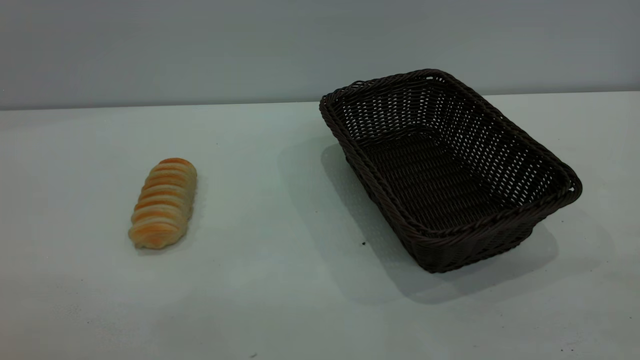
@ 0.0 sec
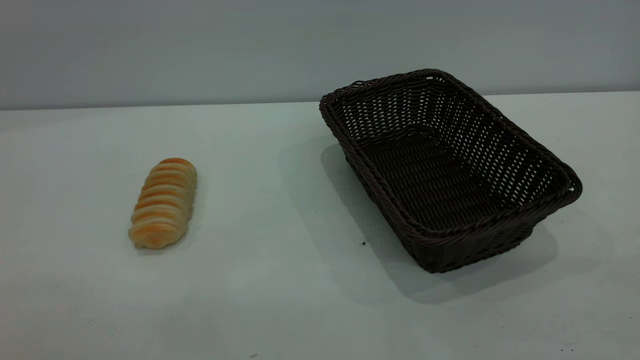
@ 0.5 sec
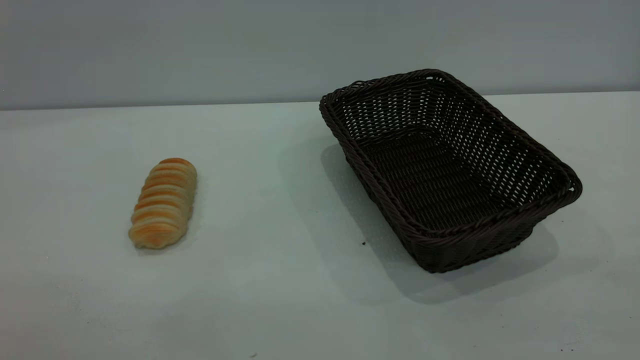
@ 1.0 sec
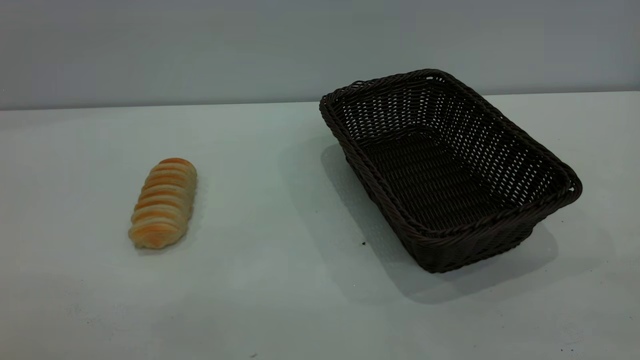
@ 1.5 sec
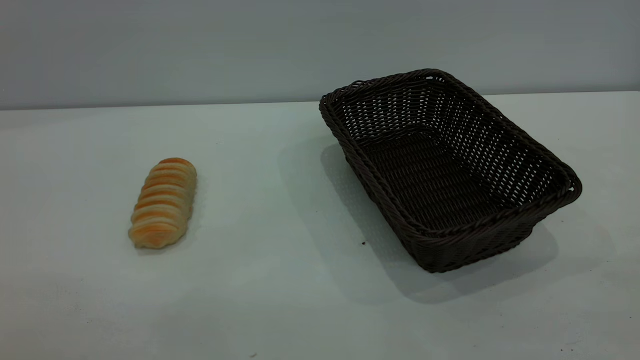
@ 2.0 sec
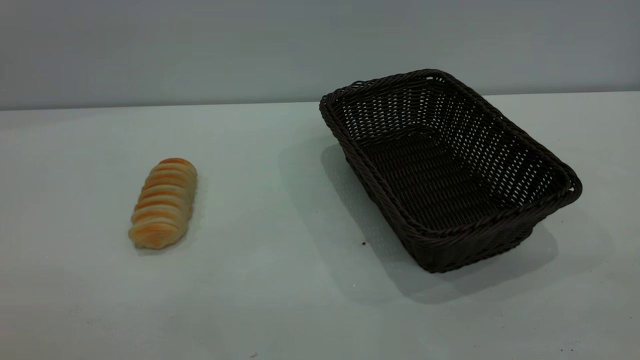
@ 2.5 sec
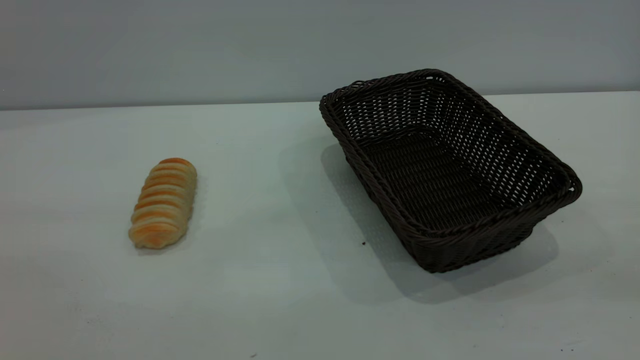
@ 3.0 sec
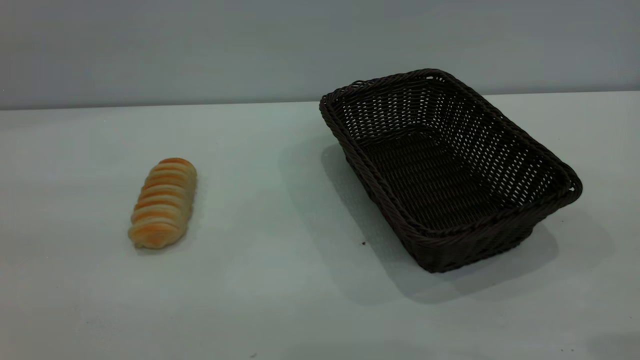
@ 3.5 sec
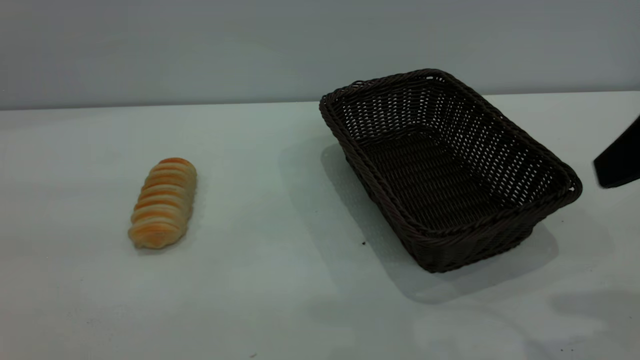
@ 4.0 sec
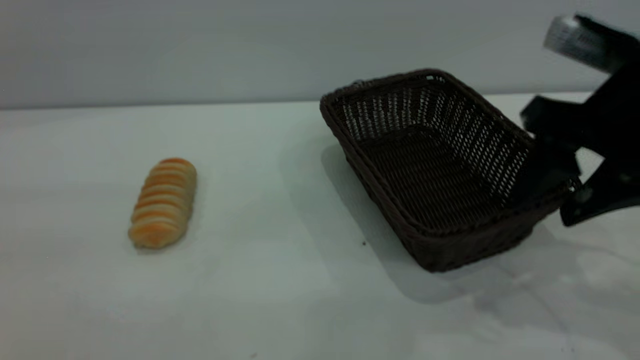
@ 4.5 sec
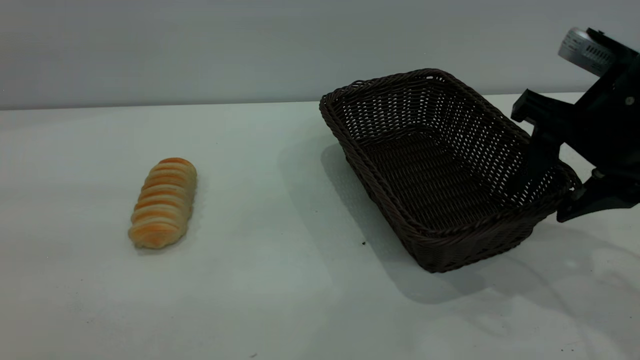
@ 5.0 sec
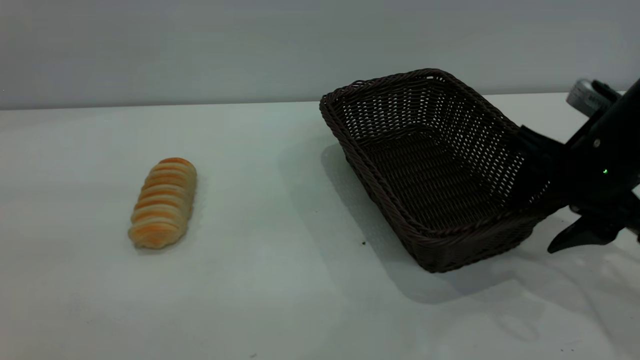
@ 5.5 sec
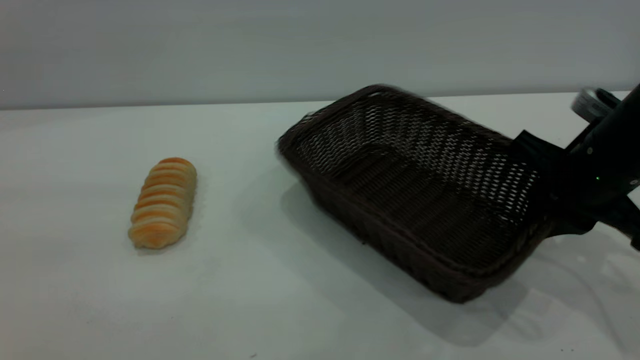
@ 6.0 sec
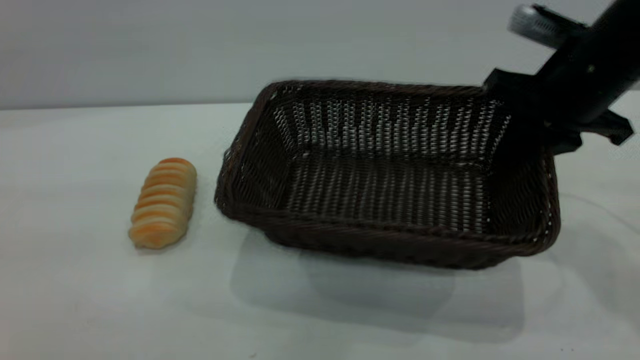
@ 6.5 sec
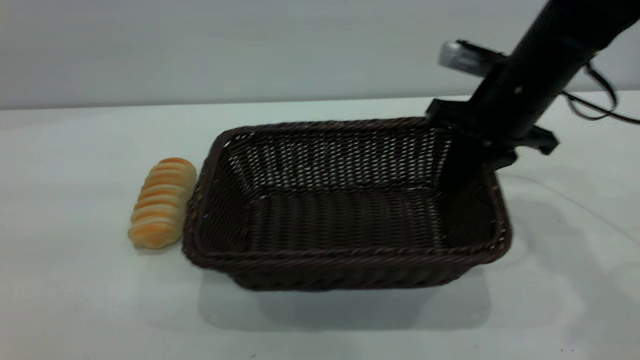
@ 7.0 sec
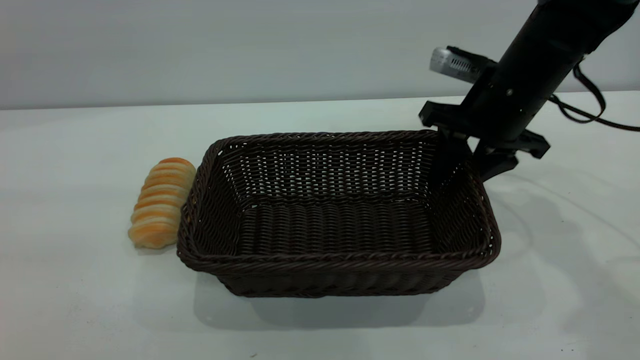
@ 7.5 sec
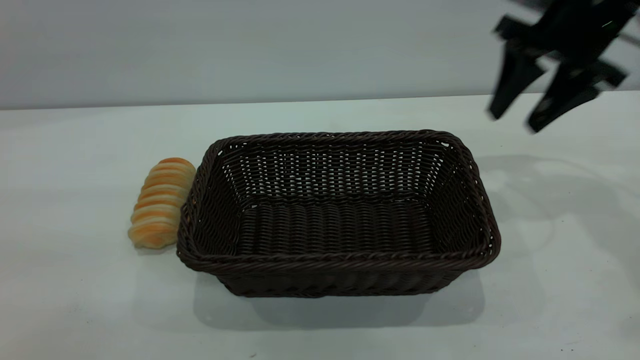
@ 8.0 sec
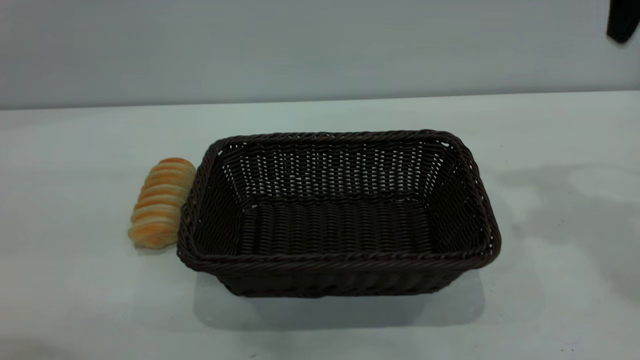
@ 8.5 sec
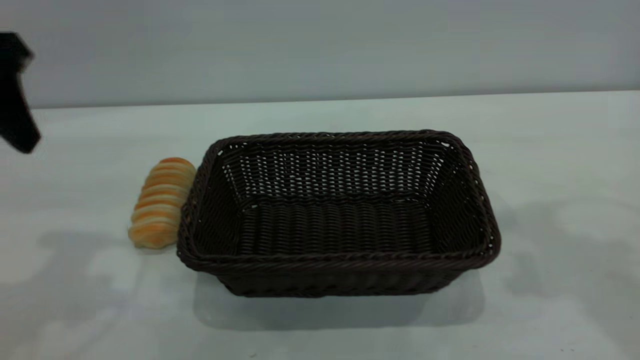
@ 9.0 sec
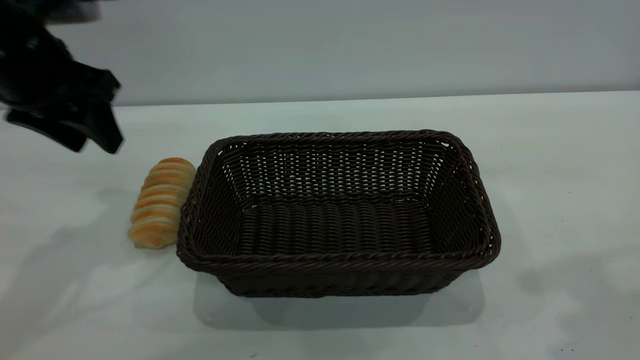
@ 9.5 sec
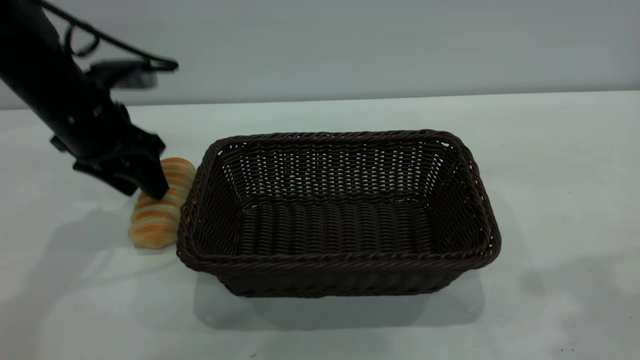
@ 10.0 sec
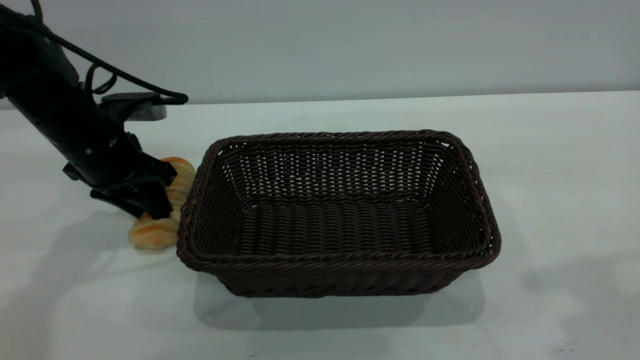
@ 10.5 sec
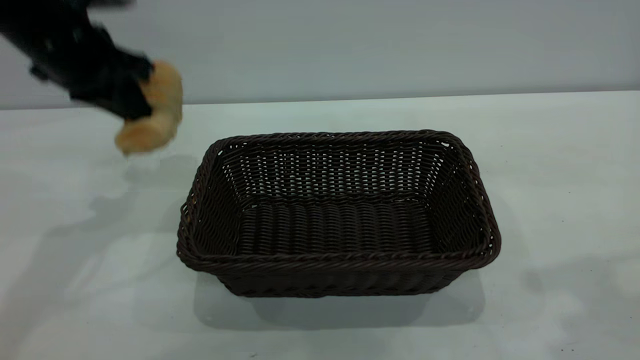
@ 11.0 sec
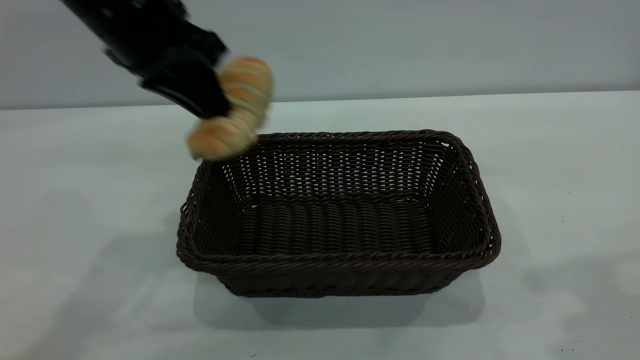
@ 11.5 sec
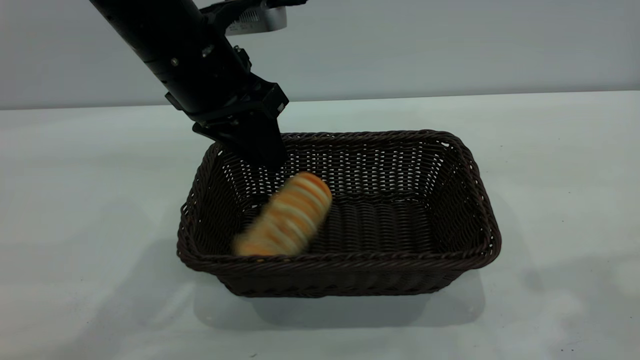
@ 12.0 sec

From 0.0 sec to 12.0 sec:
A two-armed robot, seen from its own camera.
Task of the whole recording: One hand grasps the black basket and places it in the middle of the table, while the other hand picks up the long bread and puts it into the black basket.
Step, from 0.0 sec to 7.5 sec: Move the basket to the center of view.
From 0.0 sec to 2.0 sec: Both grippers stay put.
From 2.0 sec to 4.0 sec: The right gripper heads forward, covering roughly 20 cm, and opens its fingers.
From 4.0 sec to 6.0 sec: The right gripper moves downward and forward, roughly 15 cm, and closes up.
From 6.0 sec to 8.0 sec: The right gripper shifts approximately 15 cm forward and upward, and opens up.
From 8.0 sec to 10.0 sec: The right gripper shifts some 25 cm backward and upward. Meanwhile the left gripper moves forward and downward, some 40 cm.
From 10.0 sec to 12.0 sec: The left gripper moves to the right and upward, approximately 15 cm, and closes, then reopens.

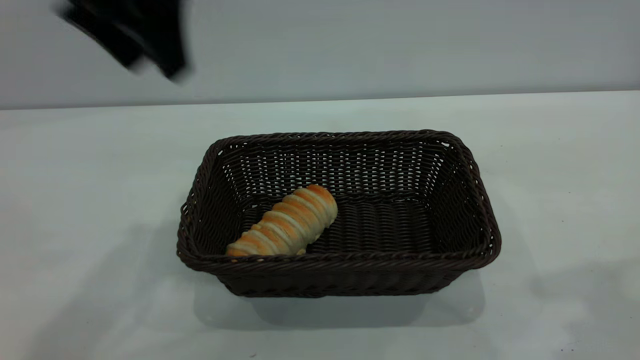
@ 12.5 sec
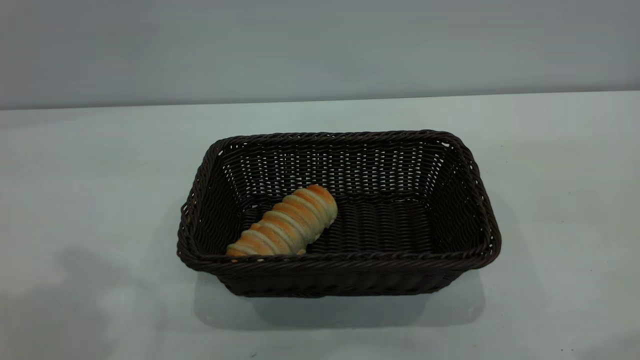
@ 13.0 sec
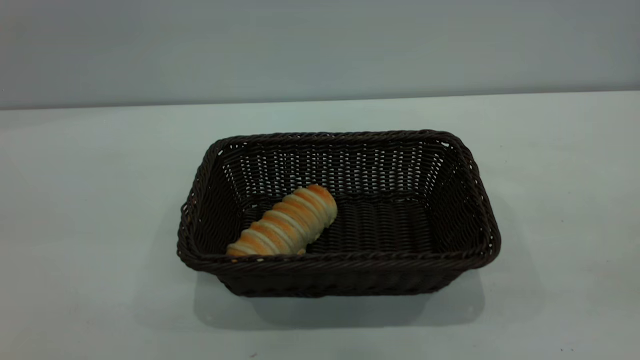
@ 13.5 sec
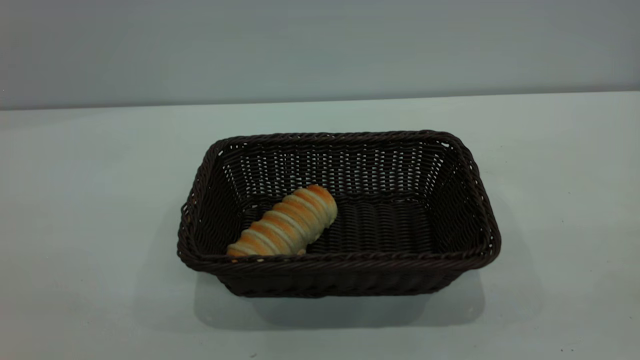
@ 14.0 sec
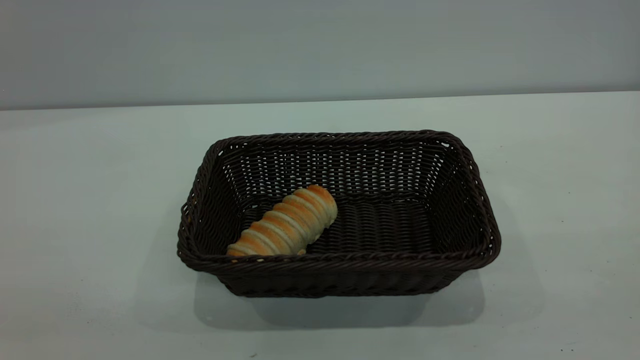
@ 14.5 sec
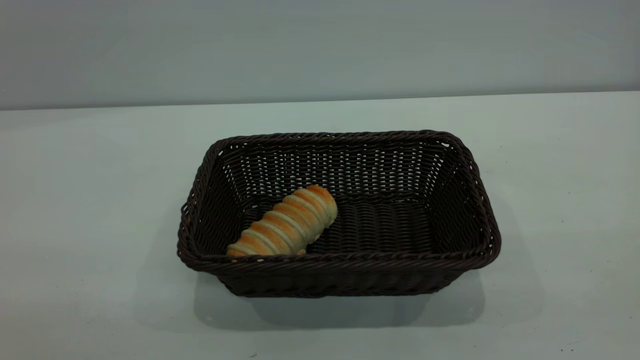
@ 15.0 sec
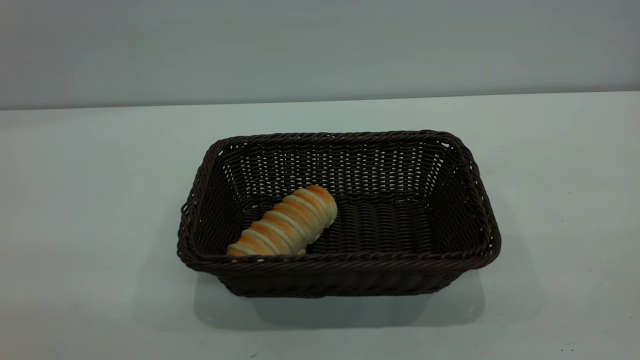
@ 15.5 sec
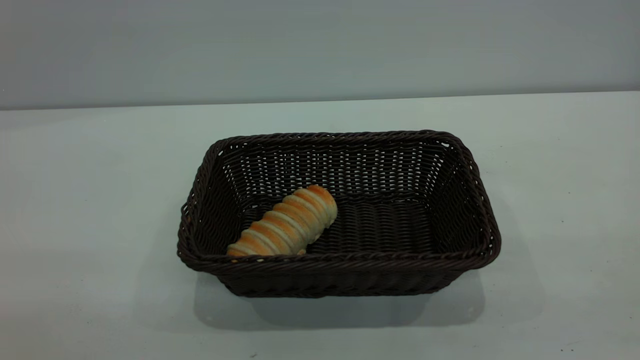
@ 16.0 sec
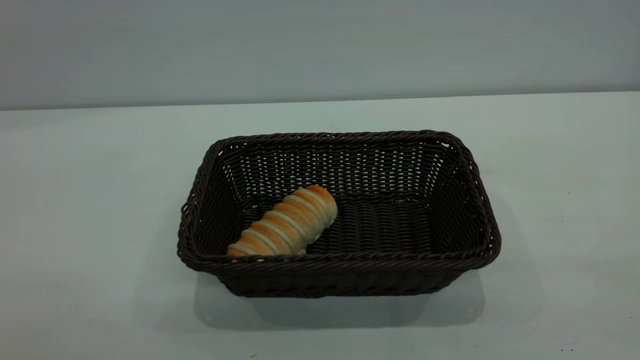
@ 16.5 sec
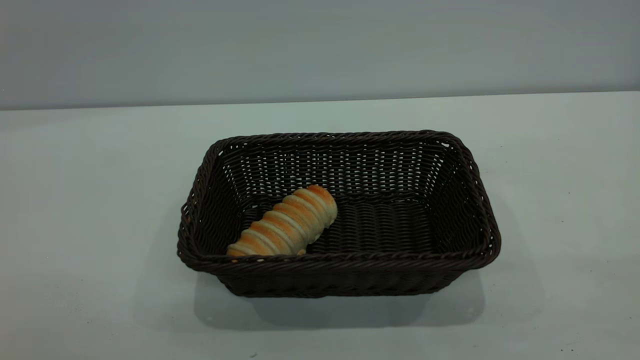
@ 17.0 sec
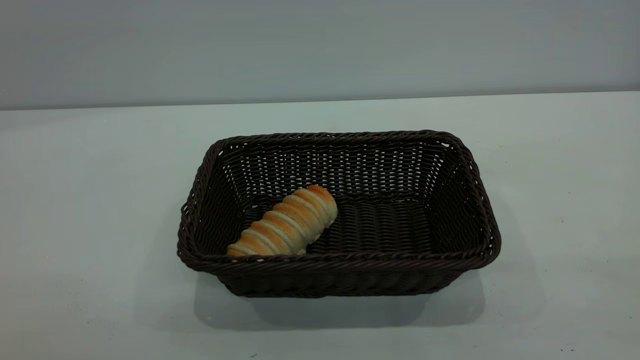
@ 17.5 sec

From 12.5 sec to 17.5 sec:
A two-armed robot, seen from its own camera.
Task of the whole recording: One hand grasps the black basket and places it in the middle of the table, while the other hand picks up the long bread and puts it into the black basket.
From 12.5 sec to 15.0 sec: The left gripper shifts approximately 30 cm backward.

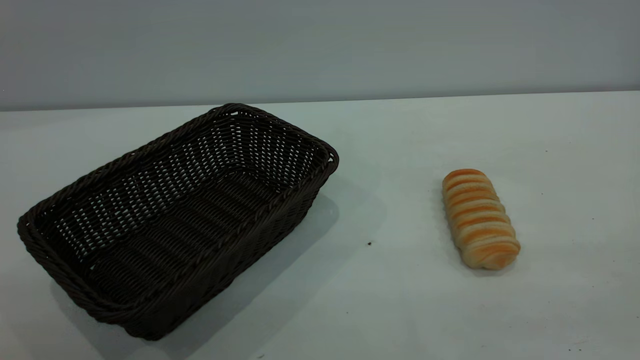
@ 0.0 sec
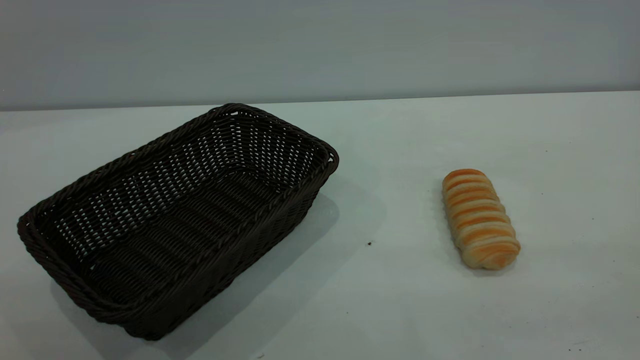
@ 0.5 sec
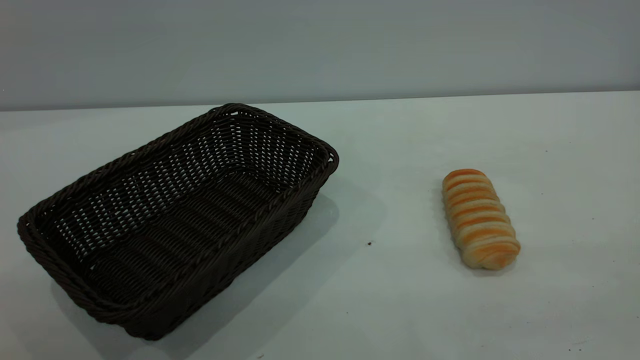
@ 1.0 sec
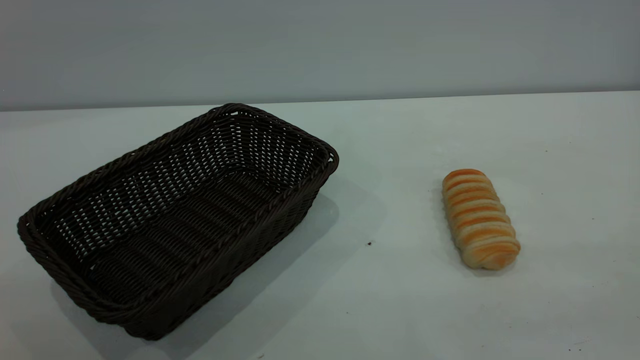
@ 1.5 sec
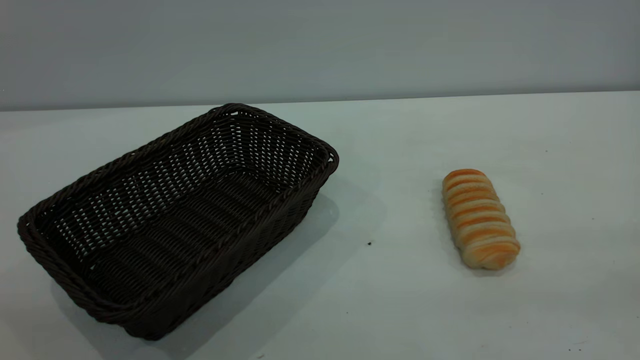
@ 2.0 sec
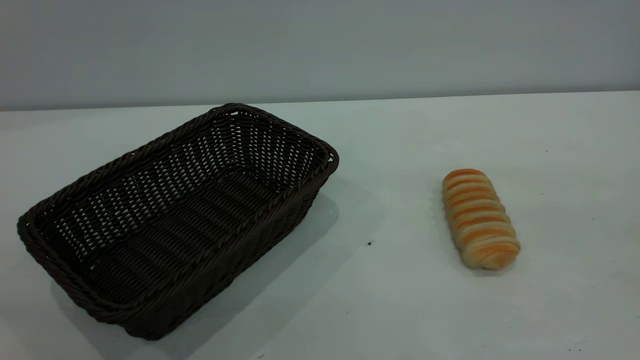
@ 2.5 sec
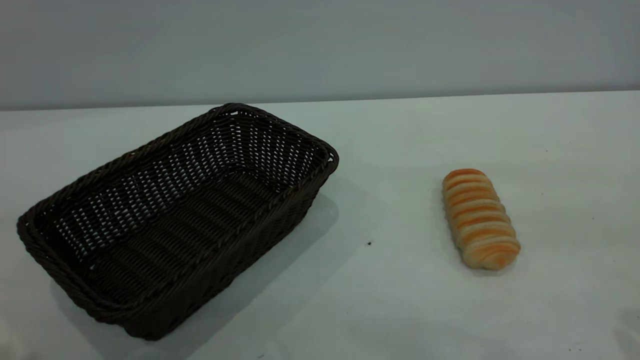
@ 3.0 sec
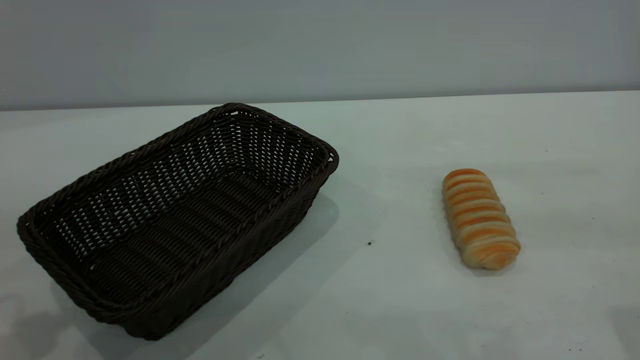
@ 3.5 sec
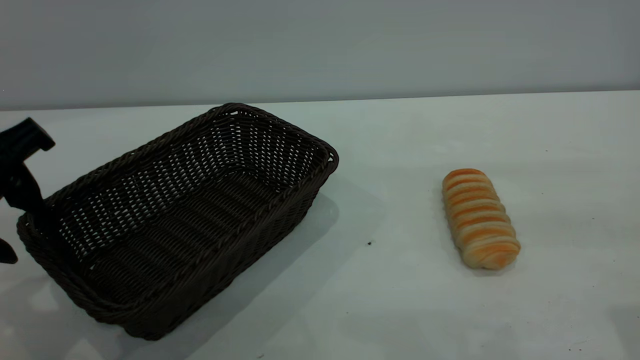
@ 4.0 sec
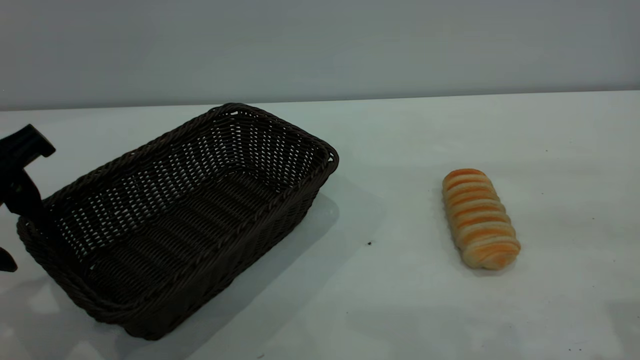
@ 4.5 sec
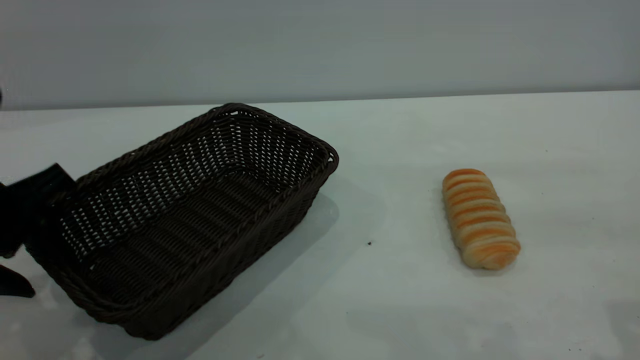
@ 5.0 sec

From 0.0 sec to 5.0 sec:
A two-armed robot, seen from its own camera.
Task of the whole recording: One hand grasps the black basket and places it in the middle of the table, while the other hand picks up the long bread and puts it into the black basket.
From 2.5 sec to 5.0 sec: The left gripper travels downward and forward by approximately 25 cm.
